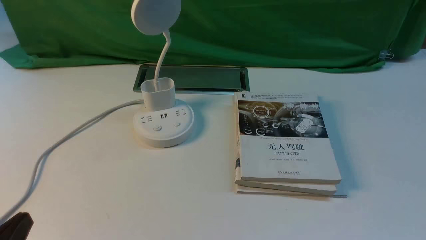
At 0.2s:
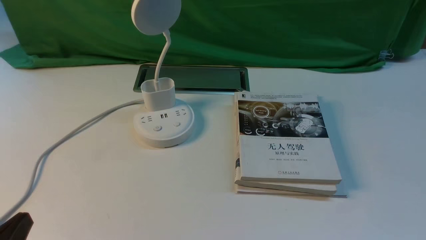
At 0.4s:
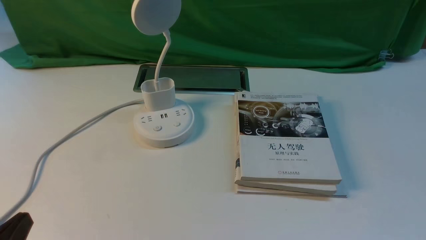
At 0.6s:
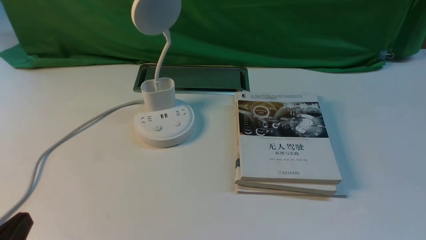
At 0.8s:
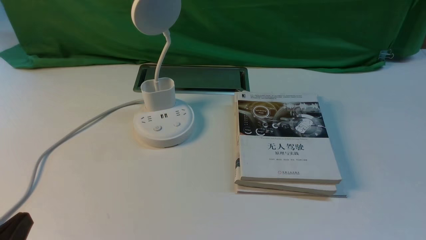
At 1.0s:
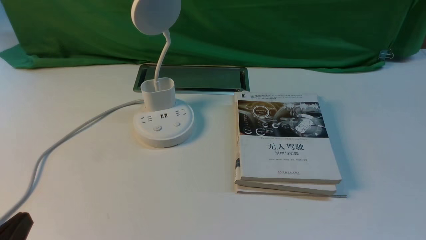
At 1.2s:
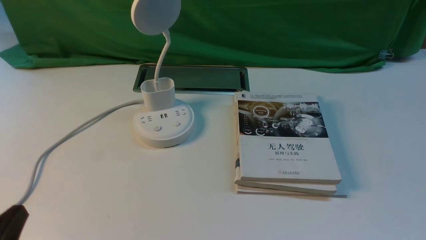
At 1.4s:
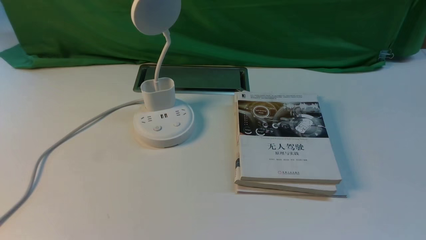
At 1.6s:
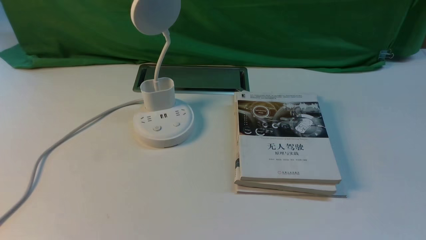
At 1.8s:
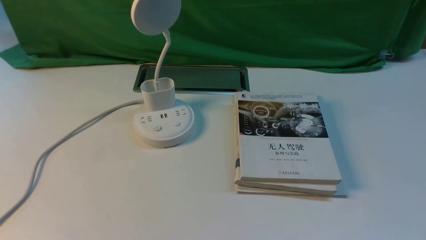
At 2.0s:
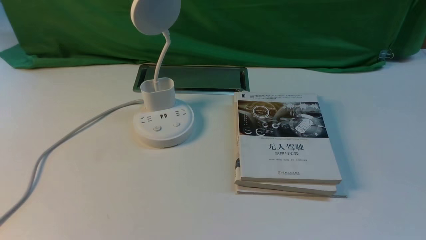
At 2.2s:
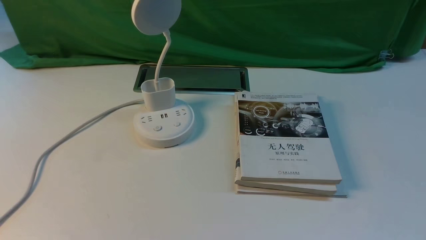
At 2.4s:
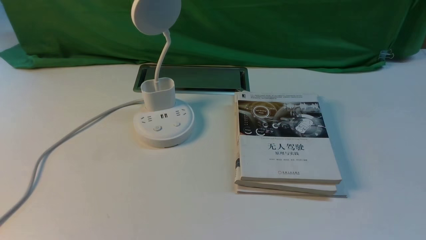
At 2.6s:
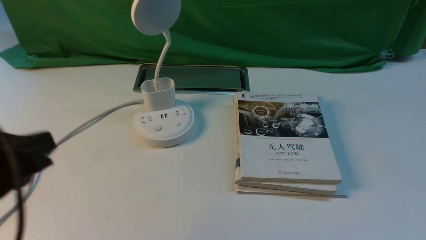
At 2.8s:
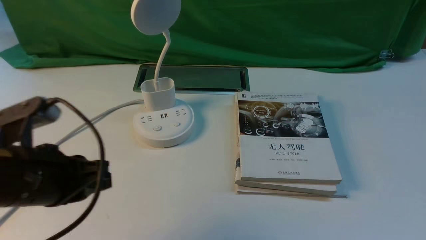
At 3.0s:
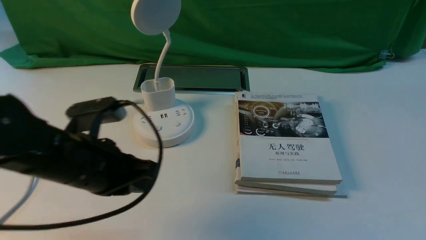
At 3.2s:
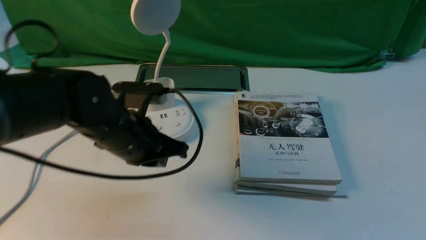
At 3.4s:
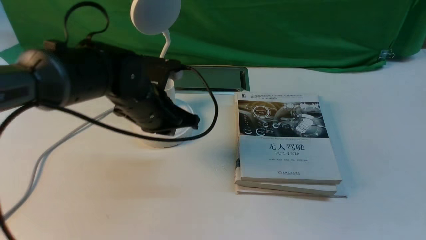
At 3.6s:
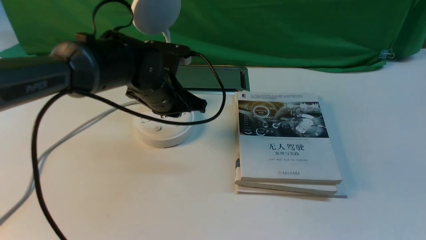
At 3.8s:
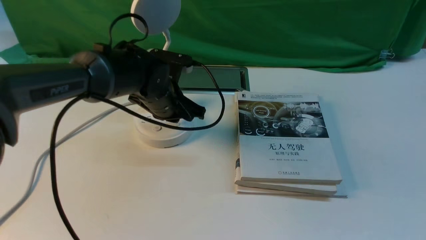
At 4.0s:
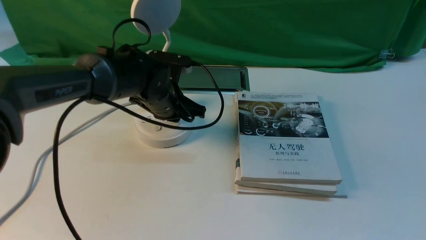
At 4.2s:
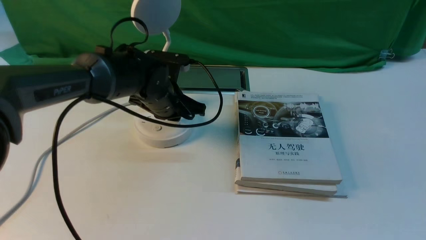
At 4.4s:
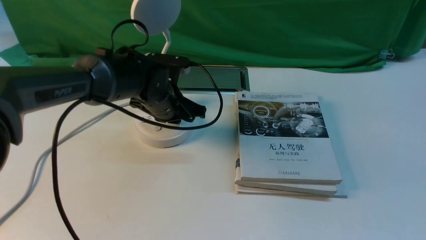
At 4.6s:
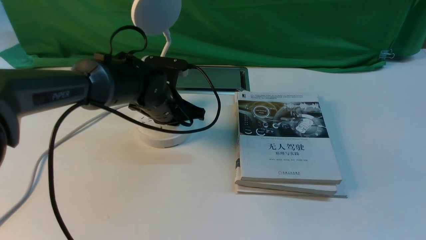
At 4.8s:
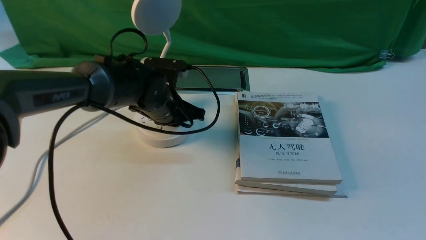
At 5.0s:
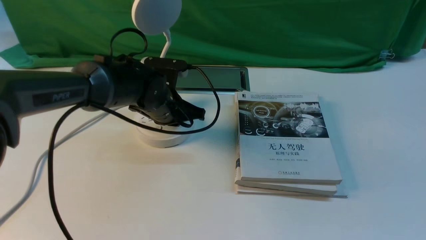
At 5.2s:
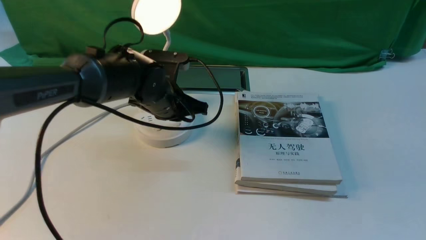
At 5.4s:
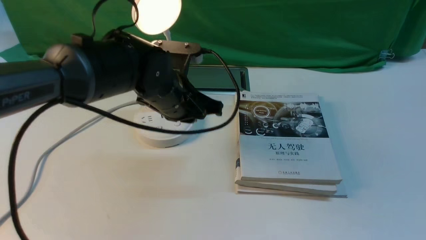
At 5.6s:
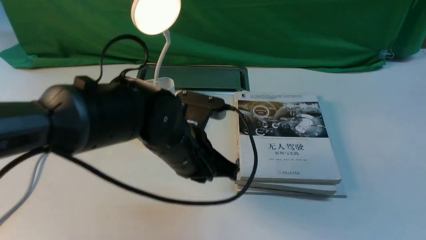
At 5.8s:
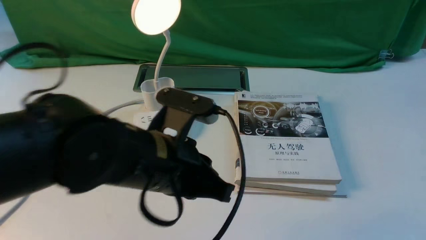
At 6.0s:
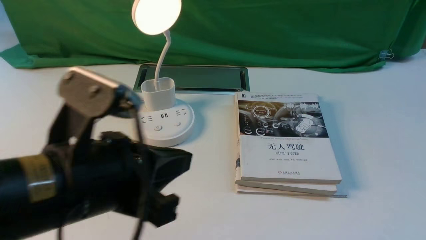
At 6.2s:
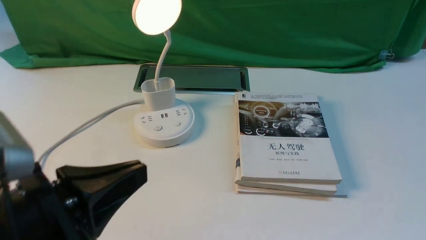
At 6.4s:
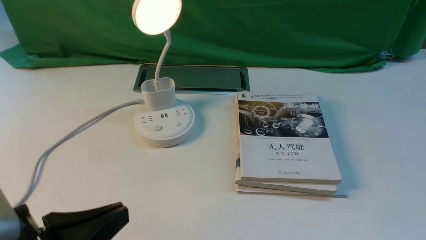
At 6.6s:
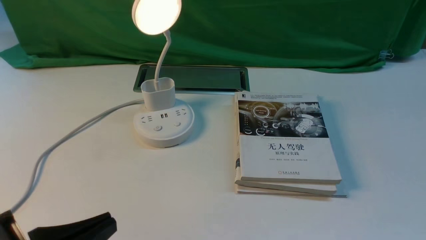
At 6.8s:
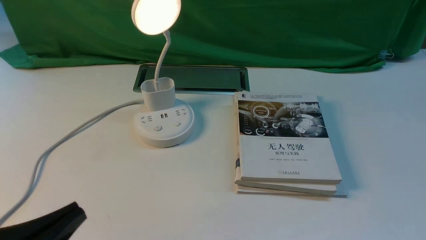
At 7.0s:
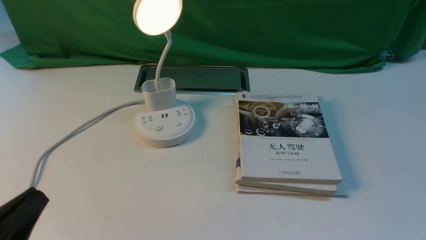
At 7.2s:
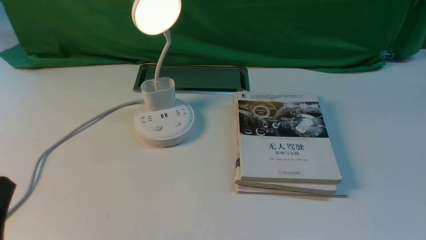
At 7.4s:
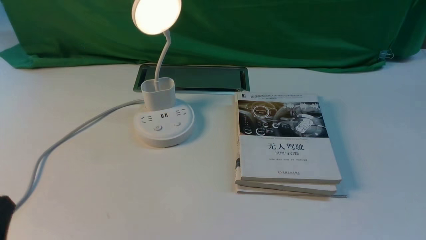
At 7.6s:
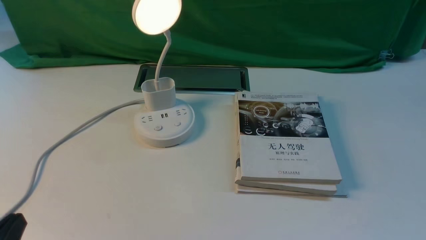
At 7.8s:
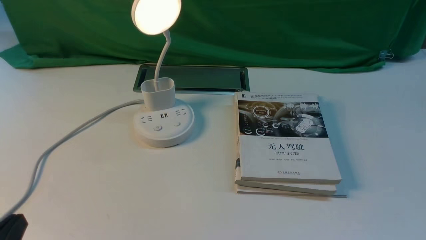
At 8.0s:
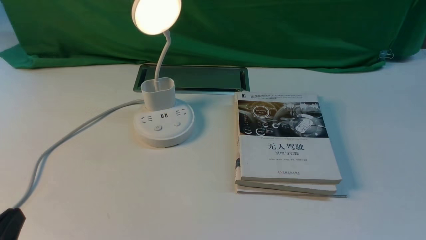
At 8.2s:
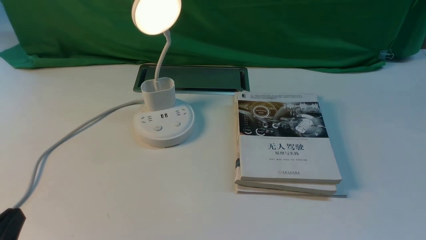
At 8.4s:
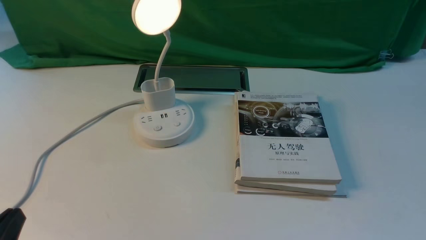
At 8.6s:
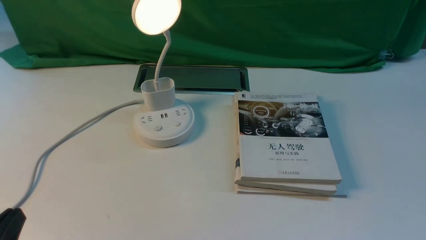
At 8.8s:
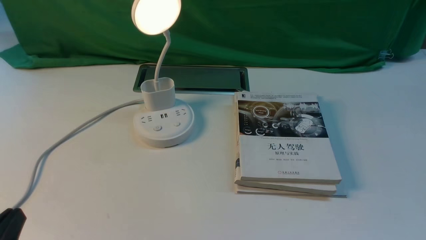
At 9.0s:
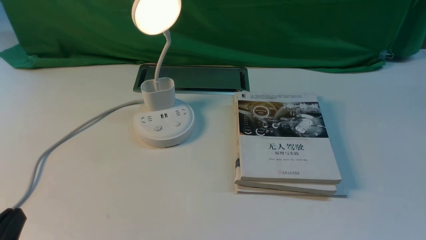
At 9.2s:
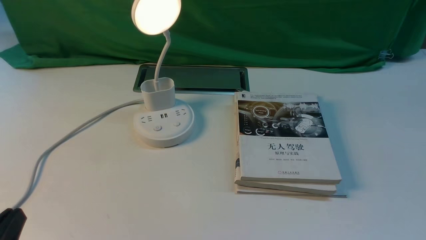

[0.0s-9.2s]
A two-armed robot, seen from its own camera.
Step, 0.0s to 5.2s: use the left arm to press the button switch on the lamp holder.
0.0s to 1.6s: The left gripper shifts approximately 5 cm upward.
1.6s to 3.0s: The left gripper goes about 25 cm forward and to the right.
3.0s to 4.6s: The left gripper shifts approximately 20 cm forward, to the right and downward.
4.6s to 6.2s: The left gripper is displaced backward by some 30 cm.
6.2s to 7.6s: The left gripper travels downward and to the left by approximately 15 cm.

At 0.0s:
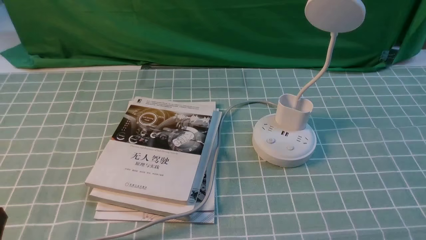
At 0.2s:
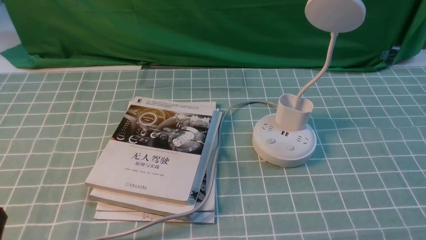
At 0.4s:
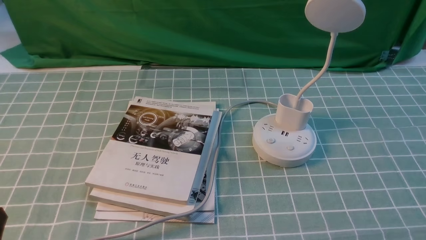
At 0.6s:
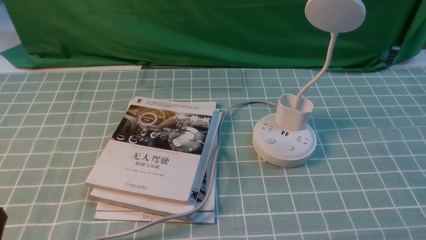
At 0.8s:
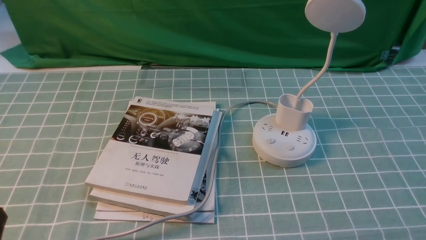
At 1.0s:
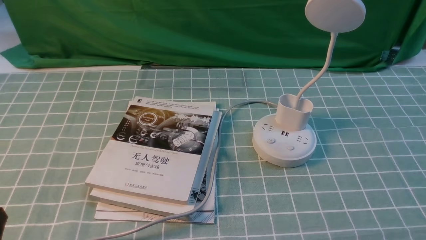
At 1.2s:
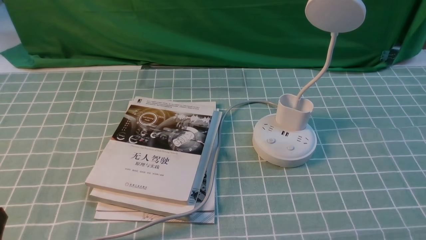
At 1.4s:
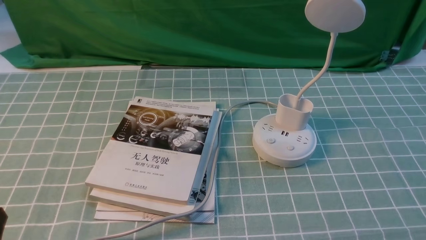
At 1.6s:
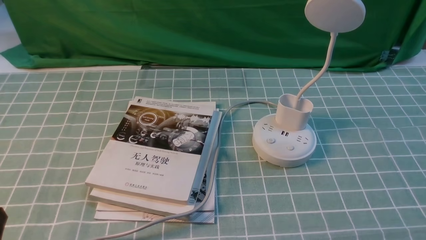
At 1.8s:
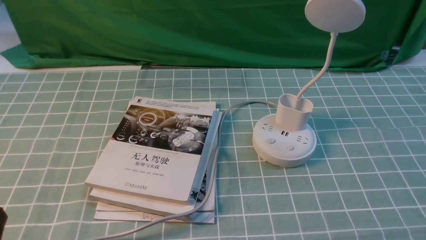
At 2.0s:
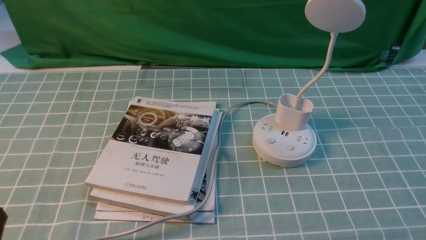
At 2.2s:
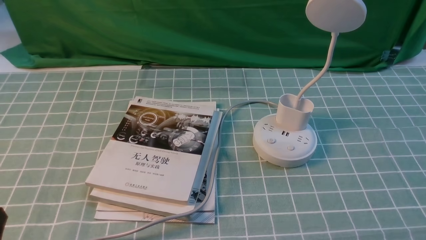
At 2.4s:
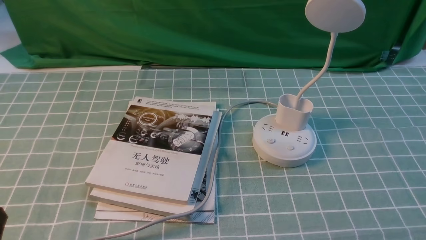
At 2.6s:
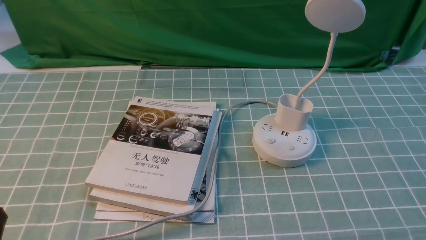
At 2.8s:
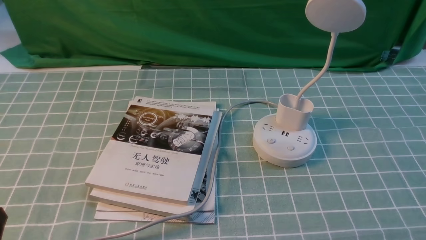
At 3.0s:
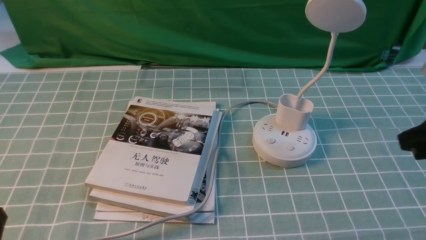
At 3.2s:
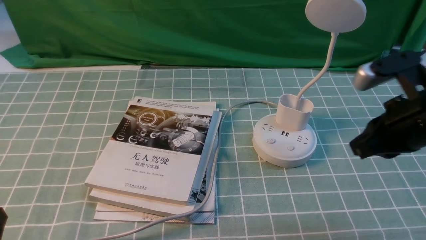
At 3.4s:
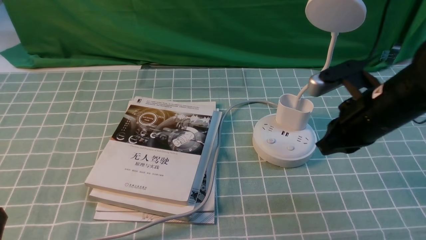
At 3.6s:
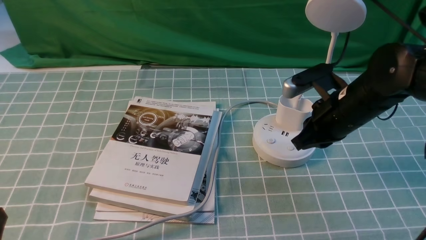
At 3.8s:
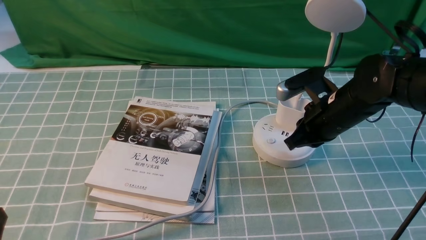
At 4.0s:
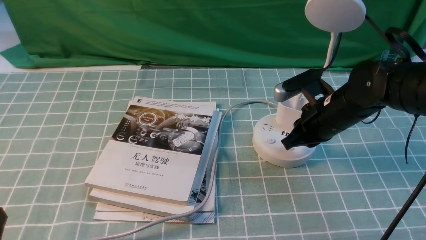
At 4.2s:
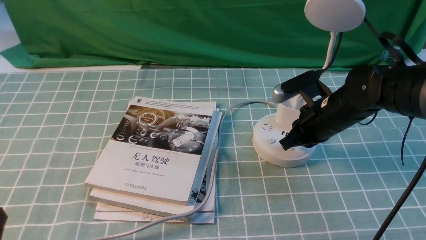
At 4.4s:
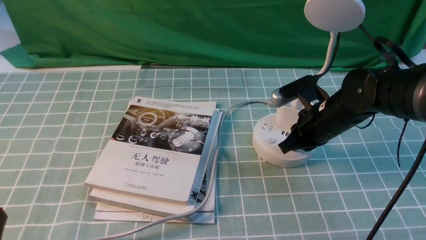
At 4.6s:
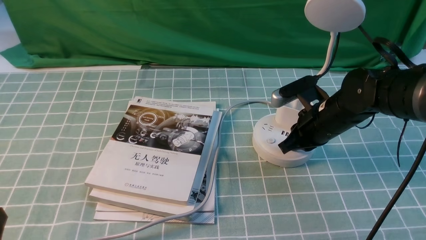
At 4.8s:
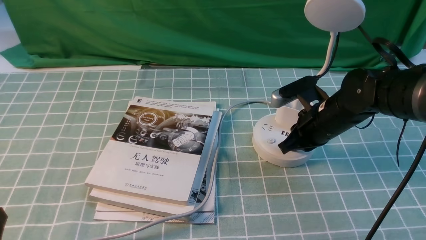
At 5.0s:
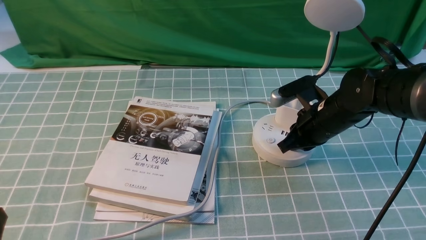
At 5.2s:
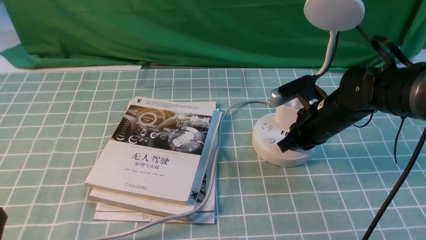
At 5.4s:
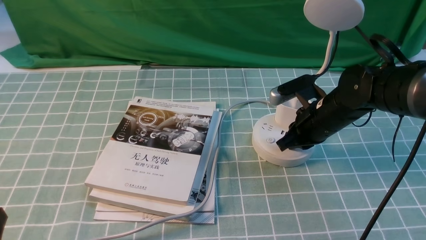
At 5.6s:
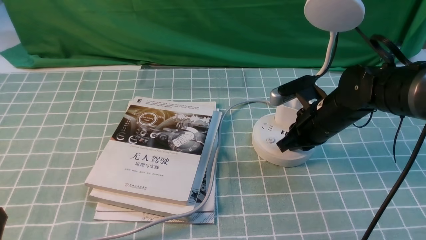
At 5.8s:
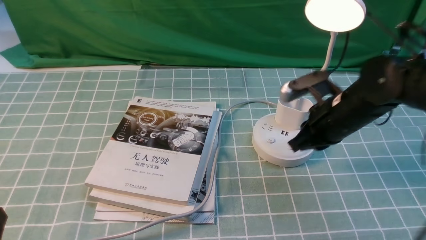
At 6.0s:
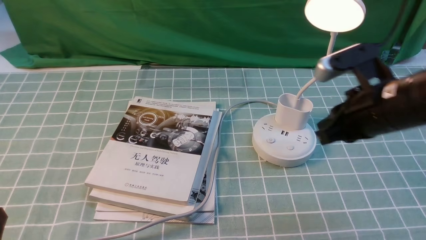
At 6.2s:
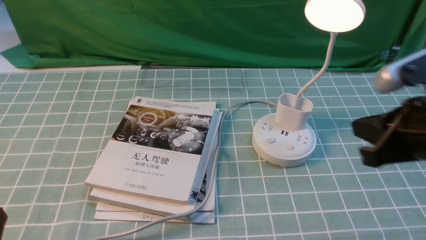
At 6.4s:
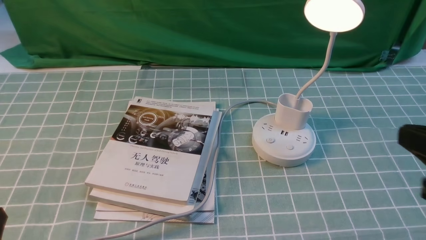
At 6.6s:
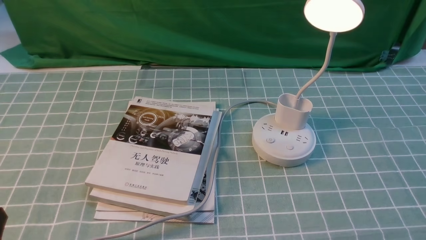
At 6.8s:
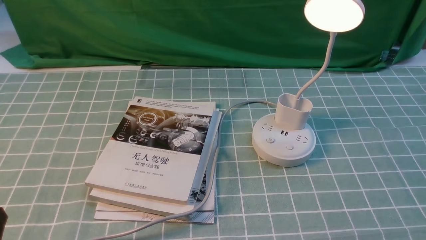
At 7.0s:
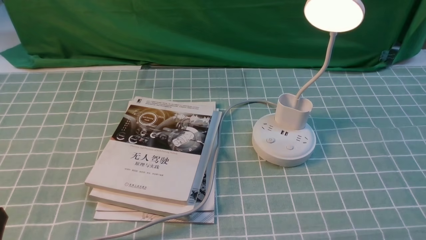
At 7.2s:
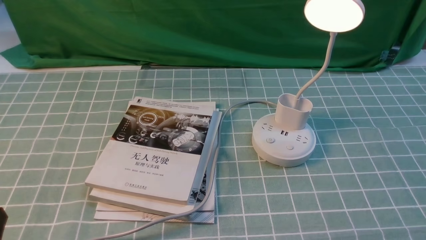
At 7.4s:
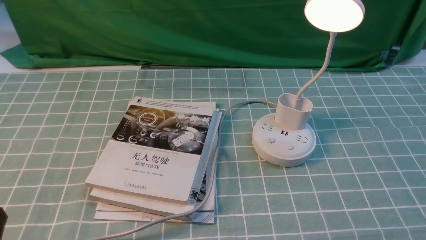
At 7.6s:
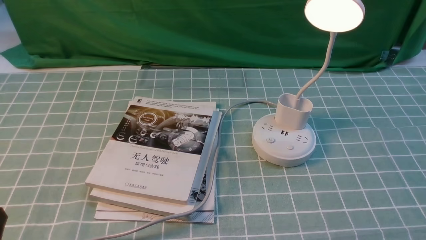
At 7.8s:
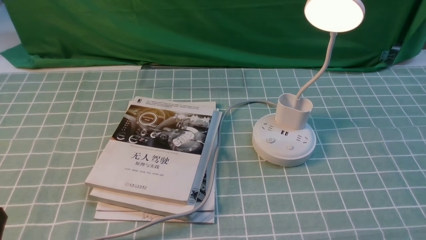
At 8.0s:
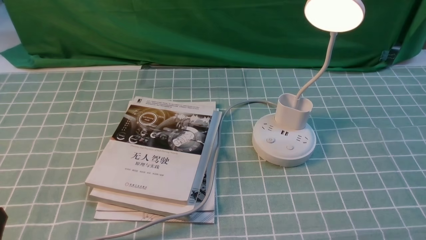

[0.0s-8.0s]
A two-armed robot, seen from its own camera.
Step, 0.0s to 5.8s: use the right arm to press the button switch on the lamp holder.
1.6s to 3.2s: The right gripper heads forward, upward and to the left, covering some 25 cm, and closes.
3.2s to 4.8s: The right gripper is displaced downward, forward and to the left by some 15 cm.
4.8s to 6.4s: The right gripper goes about 30 cm backward, upward and to the right.
6.4s to 8.0s: The right gripper is displaced downward, backward and to the right by about 15 cm, and opens up.
